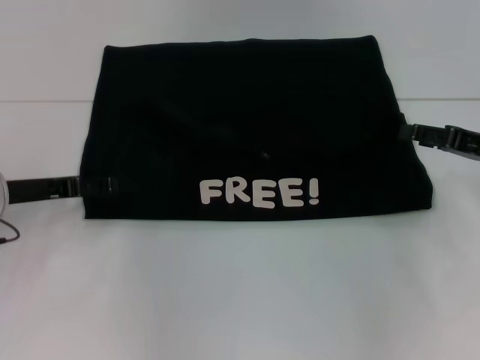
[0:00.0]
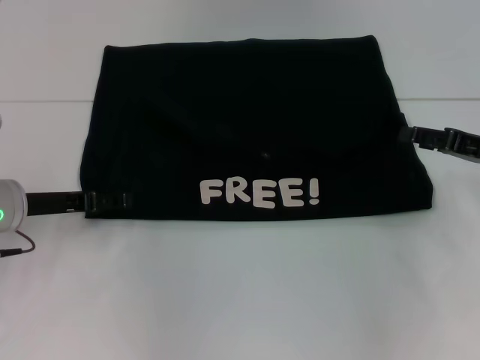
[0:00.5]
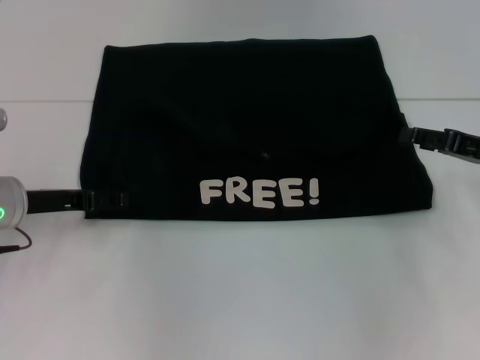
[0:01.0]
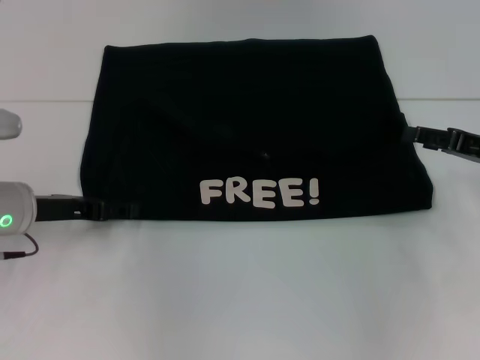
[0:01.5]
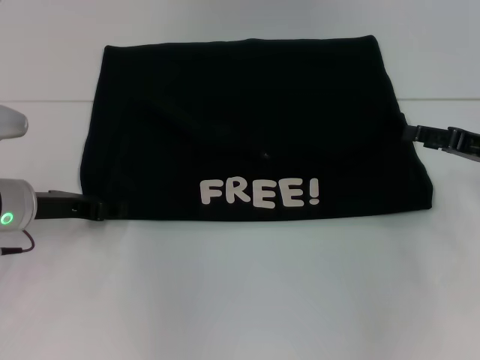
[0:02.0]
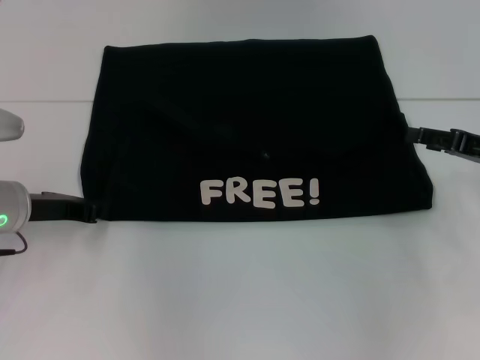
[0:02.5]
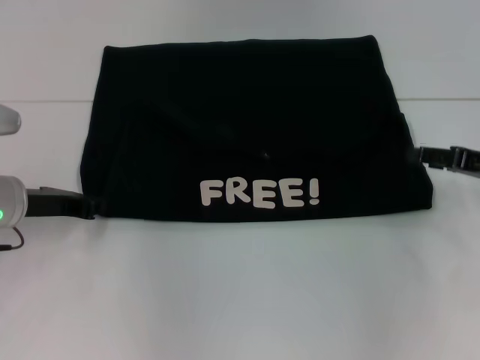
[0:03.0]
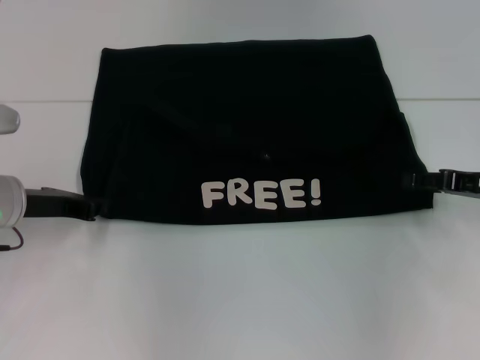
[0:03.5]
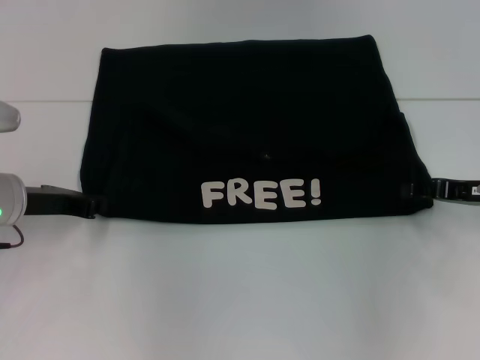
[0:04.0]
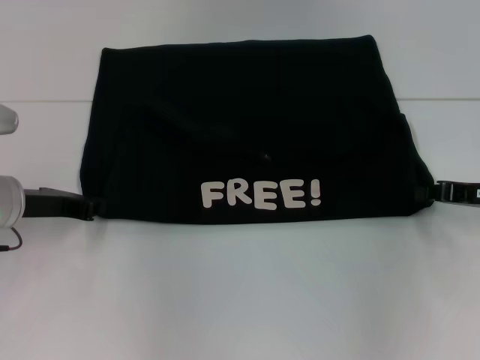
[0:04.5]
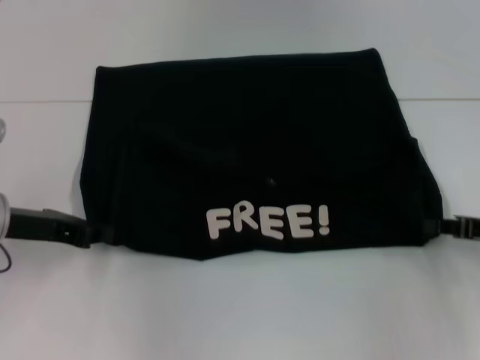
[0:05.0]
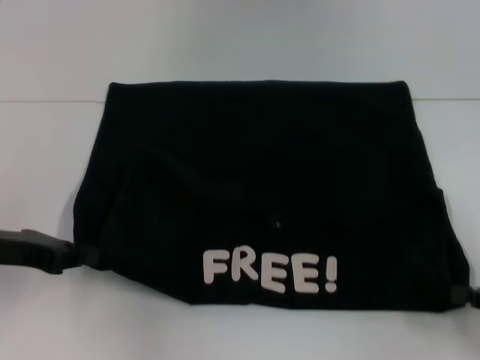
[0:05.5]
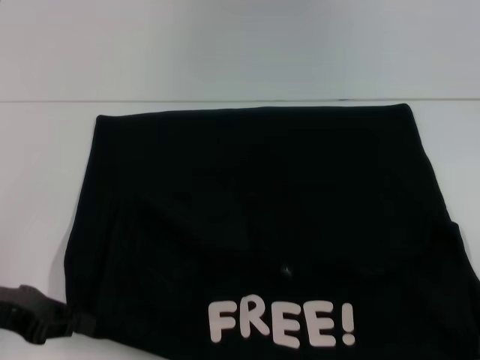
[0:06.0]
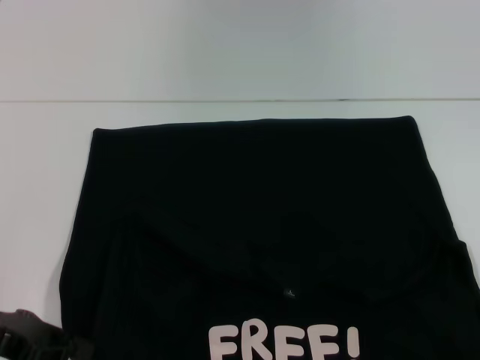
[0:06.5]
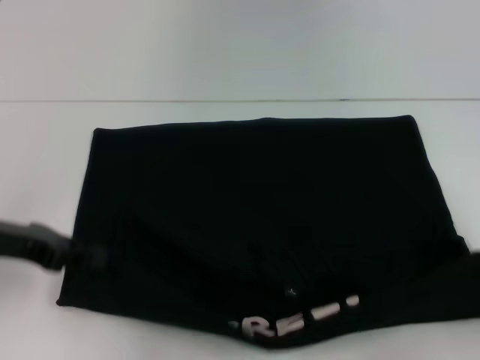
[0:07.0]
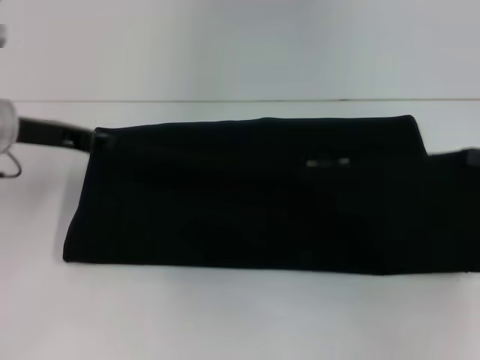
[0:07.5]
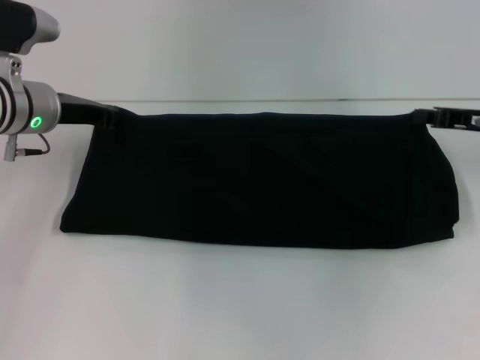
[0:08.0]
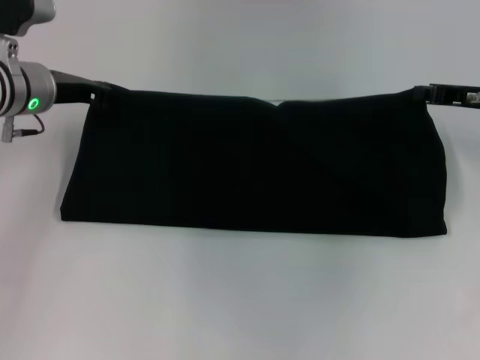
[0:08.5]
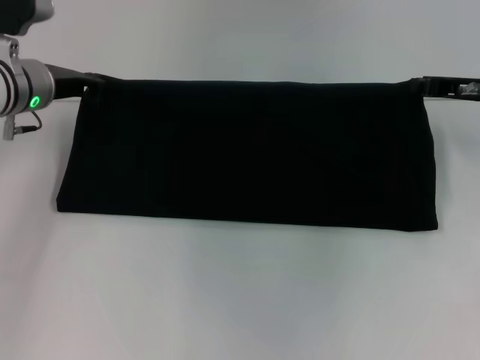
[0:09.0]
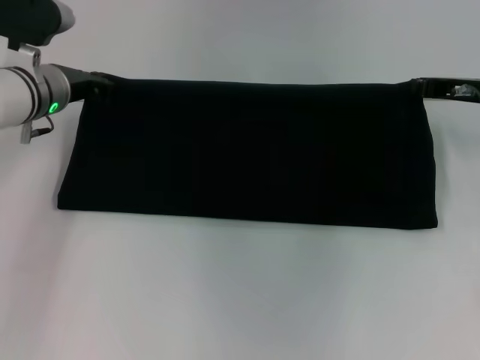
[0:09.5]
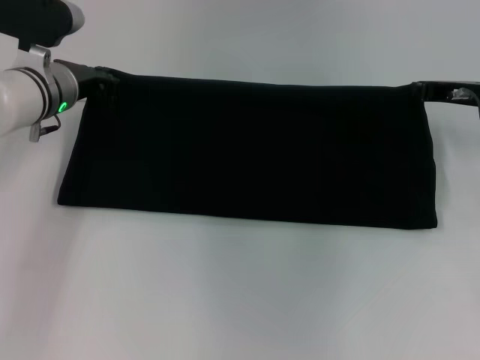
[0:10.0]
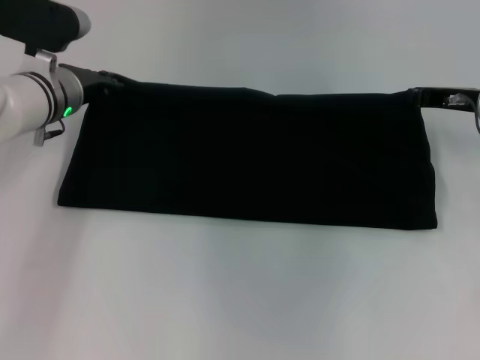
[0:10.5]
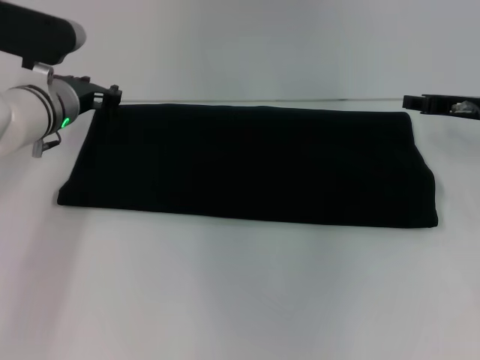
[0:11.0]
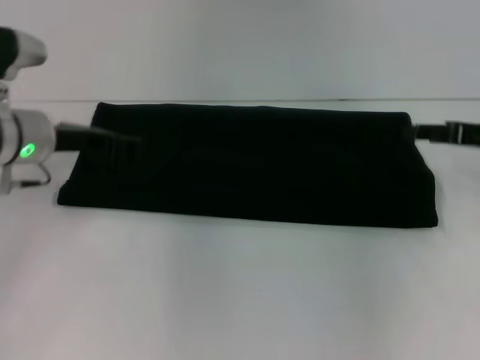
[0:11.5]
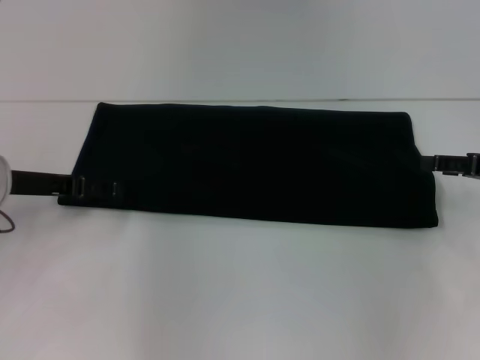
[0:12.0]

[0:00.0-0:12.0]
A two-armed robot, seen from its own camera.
Step, 0.0 to 6.5 s: Pull the clothes with your left hand.
Step, 0.0 to 6.5 s: Pull the clothes with your right hand.
Step, 7.0 to 11.0 s: Fold the clothes with your right hand.
0.0 to 2.0 s: The grippers move only a little.
2.0 to 4.0 s: The left gripper closes its fingers.
4.0 to 6.0 s: The left gripper shifts about 10 cm backward; the right gripper goes approximately 20 cm backward, and closes up.
6.0 to 8.0 s: The two grippers go about 20 cm forward.
10.0 to 12.0 s: The left gripper goes roughly 10 cm backward and to the left, and opens, while the right gripper moves backward and to the right, some 10 cm, and opens its fingers.

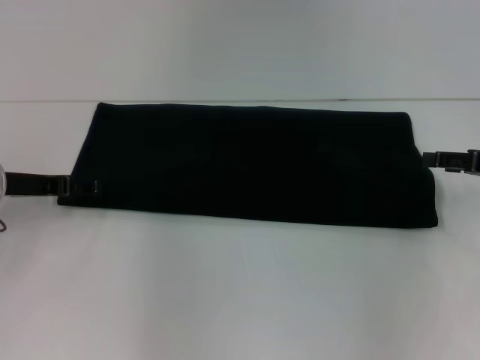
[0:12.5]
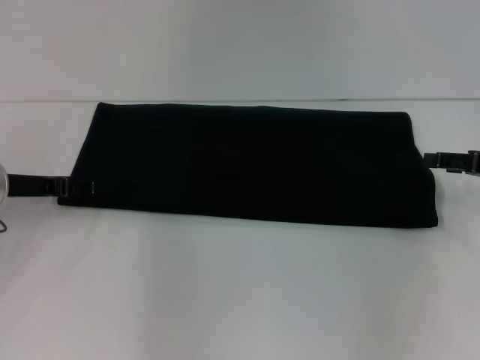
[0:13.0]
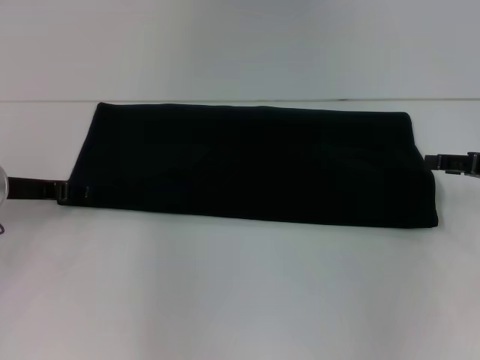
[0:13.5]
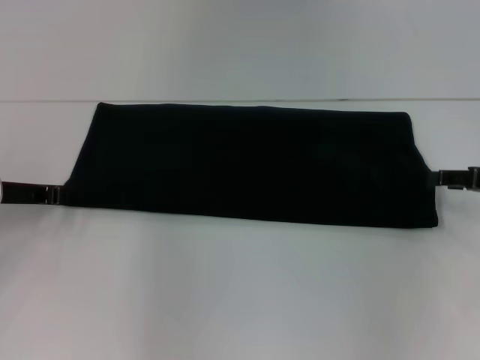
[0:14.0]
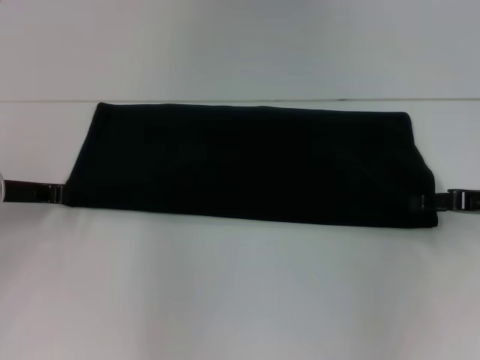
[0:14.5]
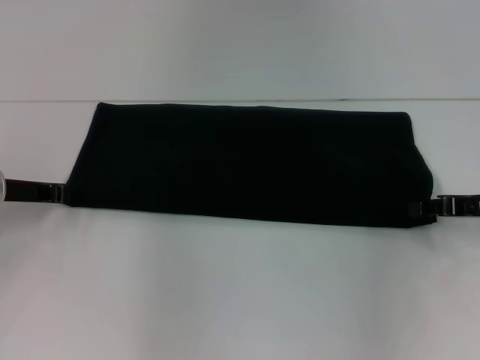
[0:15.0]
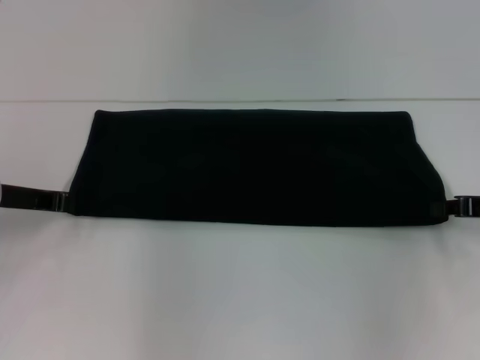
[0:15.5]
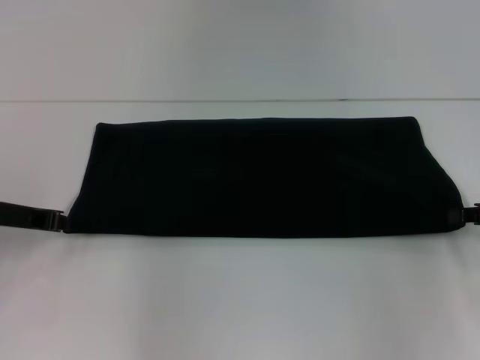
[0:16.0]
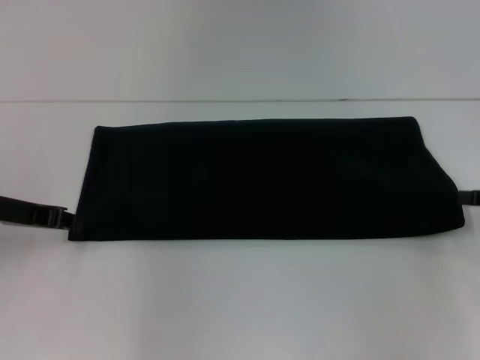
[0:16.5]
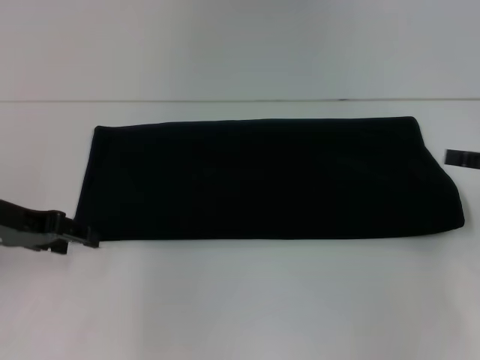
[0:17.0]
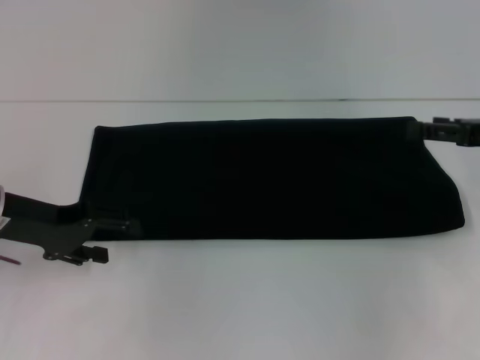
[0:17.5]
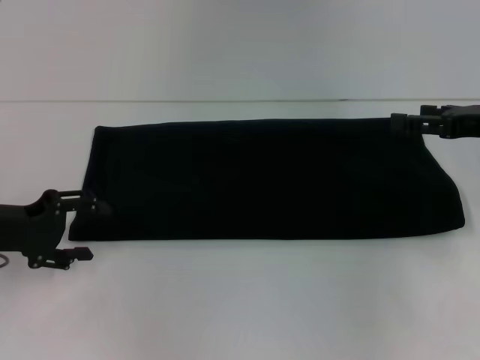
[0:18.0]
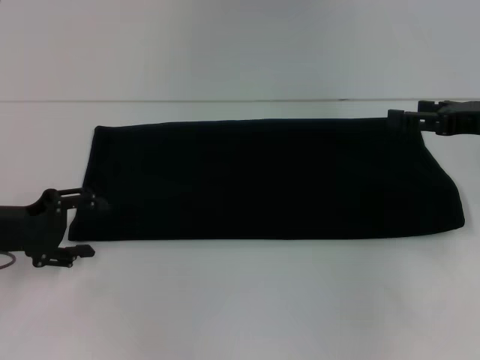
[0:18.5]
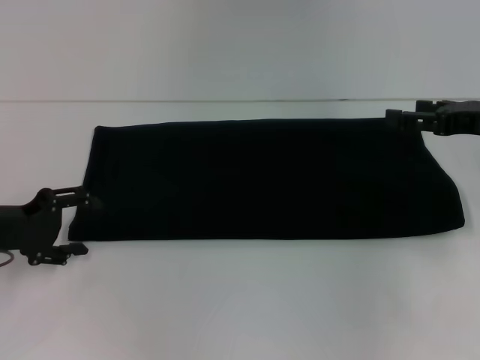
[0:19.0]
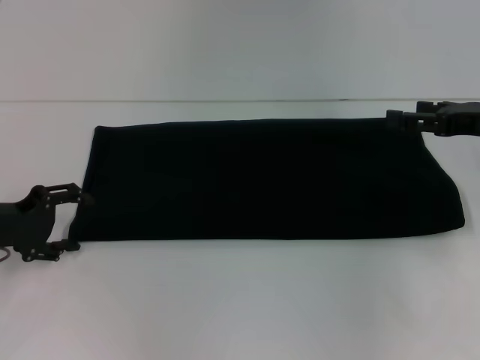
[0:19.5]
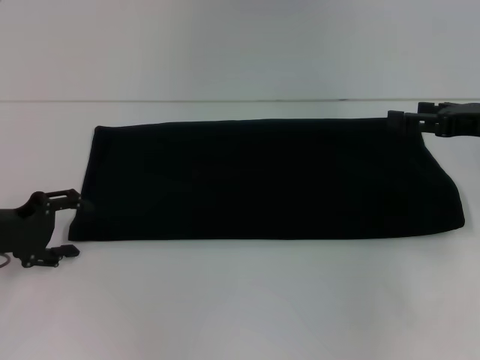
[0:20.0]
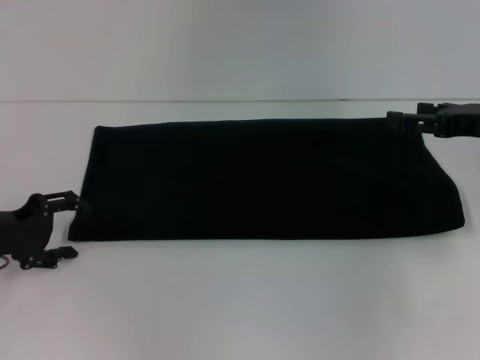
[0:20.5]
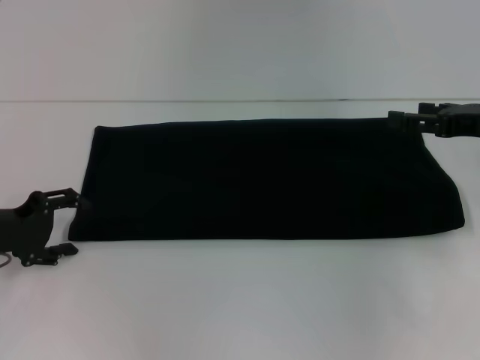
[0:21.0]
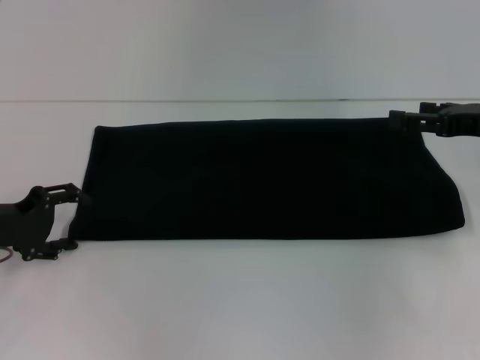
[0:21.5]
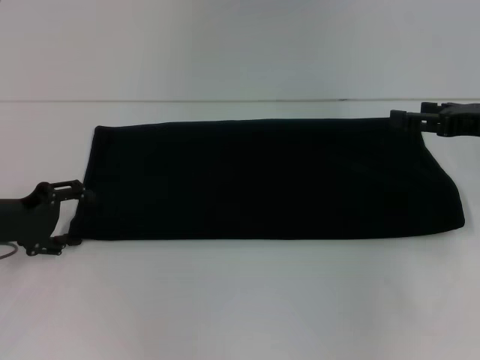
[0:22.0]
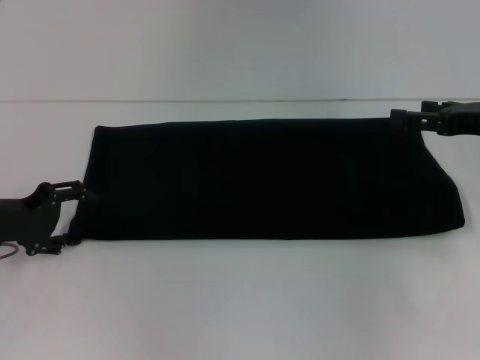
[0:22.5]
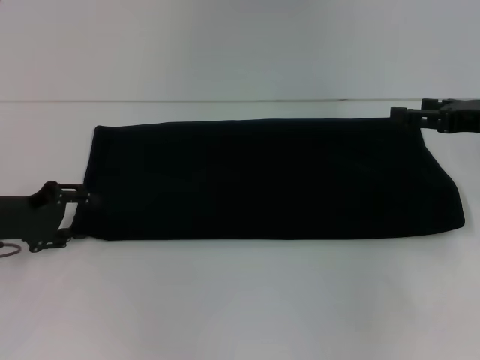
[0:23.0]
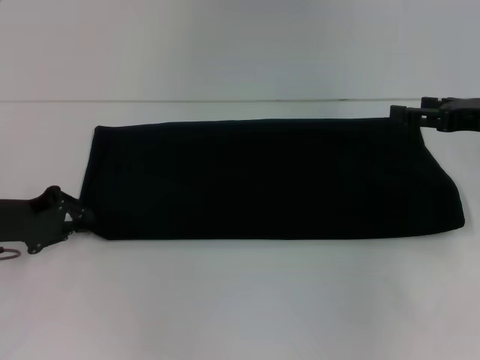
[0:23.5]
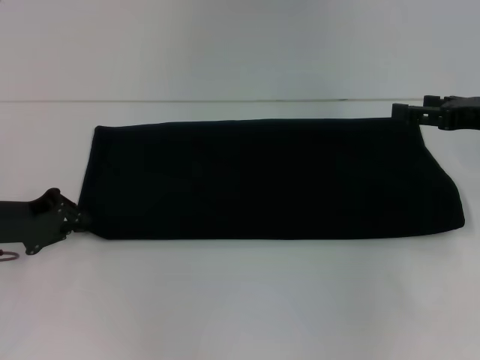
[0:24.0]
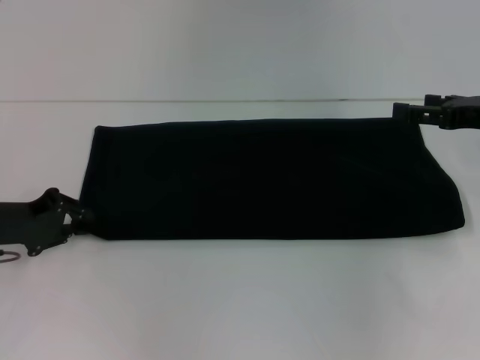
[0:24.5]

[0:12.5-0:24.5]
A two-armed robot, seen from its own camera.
12.5 to 14.5 s: The left gripper closes.
14.5 to 16.5 s: The right gripper changes place by about 5 cm, and closes.
16.5 to 18.5 s: The right gripper goes approximately 10 cm to the left and forward, and opens its fingers. The left gripper opens.
18.5 to 22.5 s: There are only small adjustments of the grippers.
22.5 to 24.5 s: The left gripper closes its fingers.

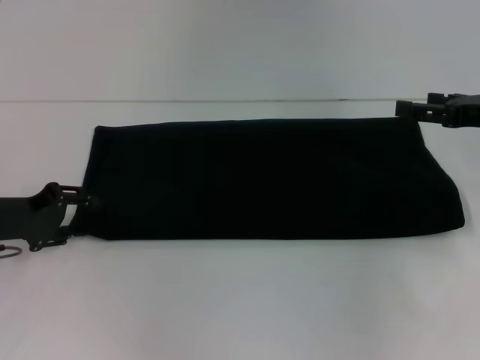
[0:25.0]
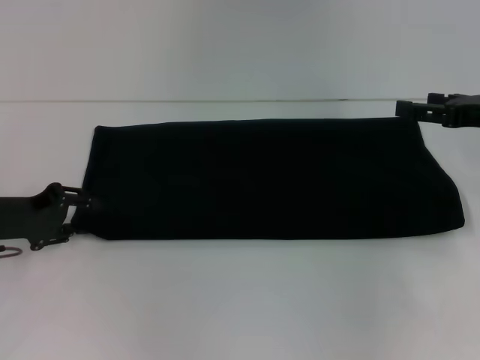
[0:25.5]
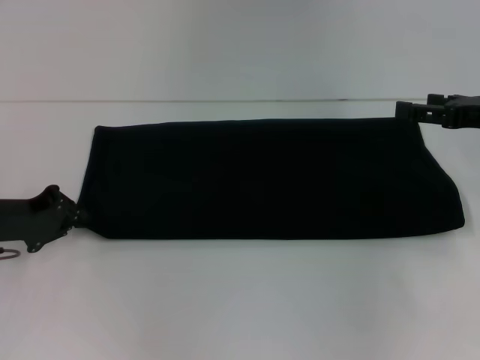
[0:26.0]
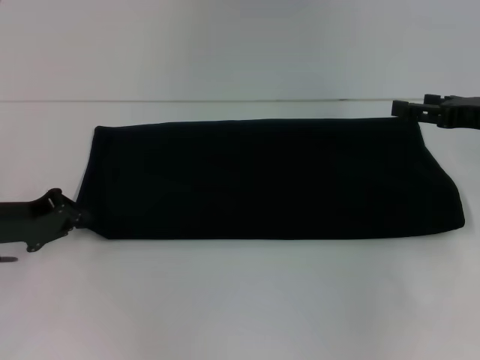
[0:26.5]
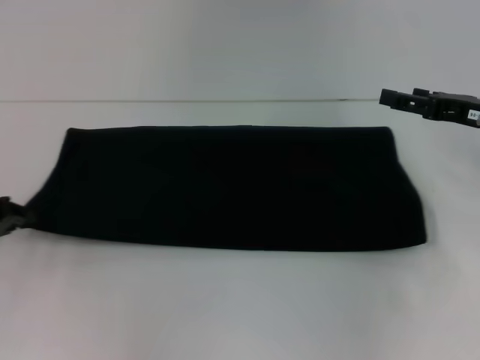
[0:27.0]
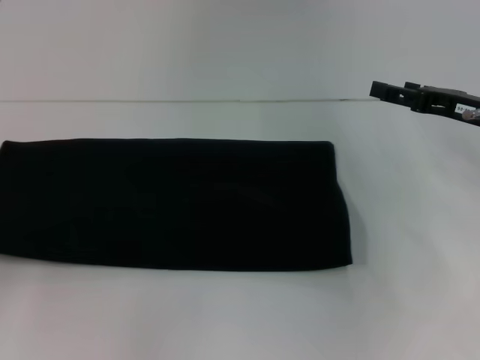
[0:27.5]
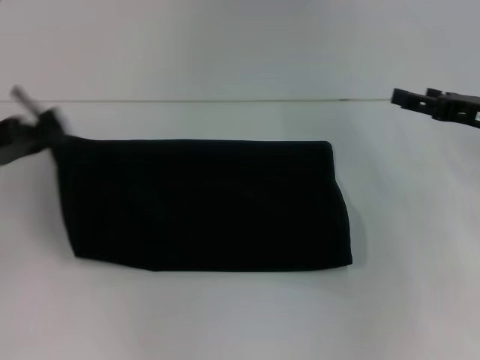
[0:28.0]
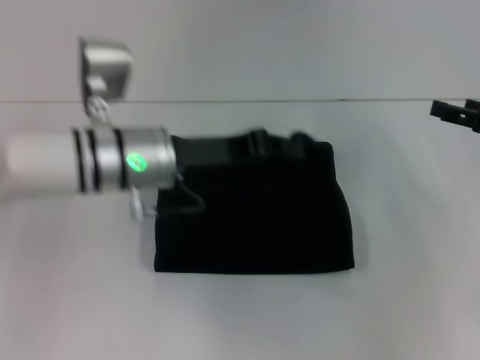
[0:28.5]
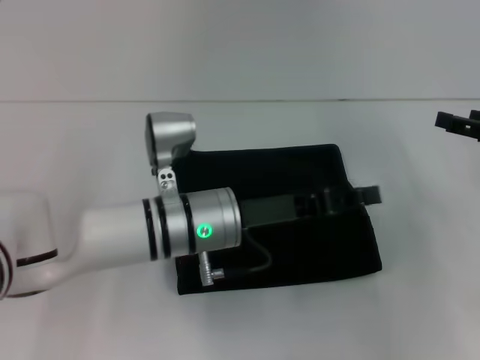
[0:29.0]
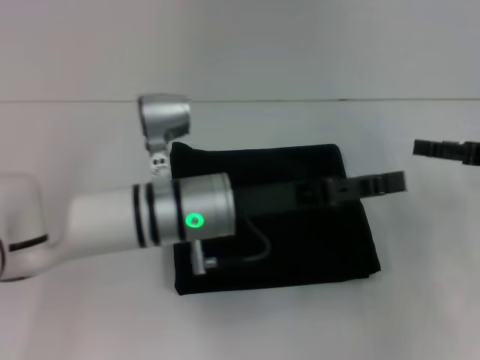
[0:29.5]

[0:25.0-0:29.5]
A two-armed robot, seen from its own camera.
Step, 25.0 to 29.0 s: Fold the clothes with your left hand.
25.0 to 27.0 s: The left gripper shifts by some 5 cm, and closes.
27.0 to 29.5 s: The left gripper moves to the right, some 30 cm, and opens up, while the right gripper ends up some 5 cm from where it was.
